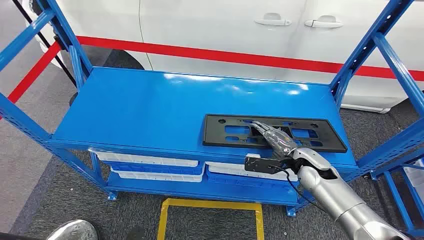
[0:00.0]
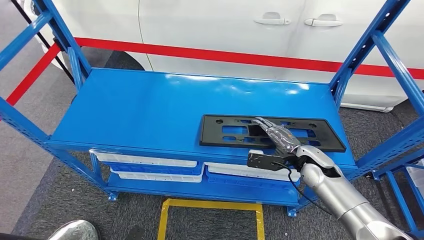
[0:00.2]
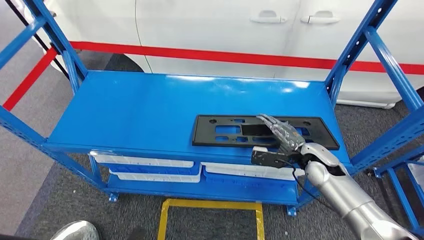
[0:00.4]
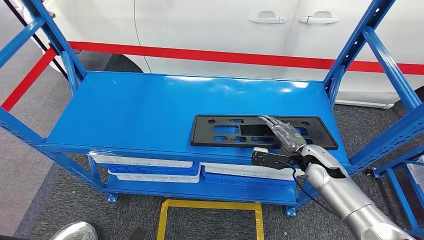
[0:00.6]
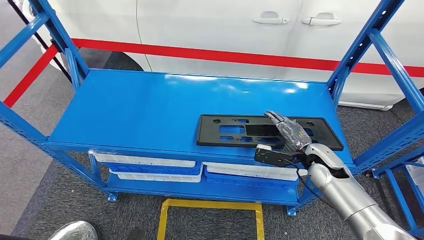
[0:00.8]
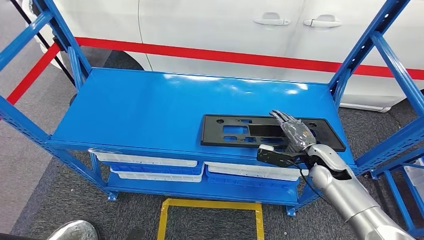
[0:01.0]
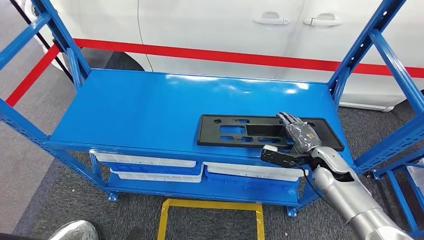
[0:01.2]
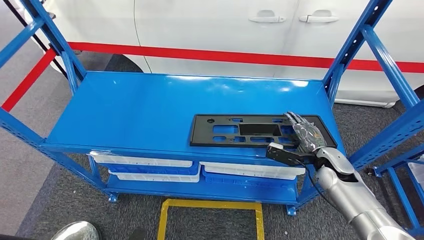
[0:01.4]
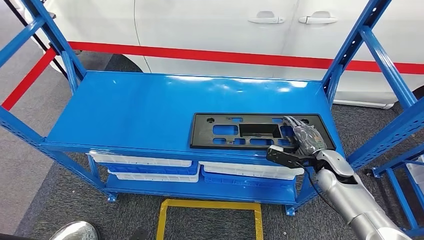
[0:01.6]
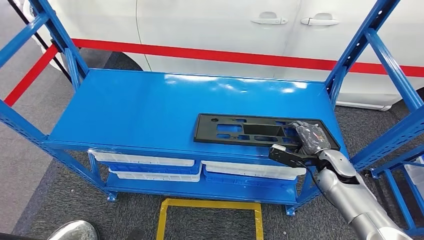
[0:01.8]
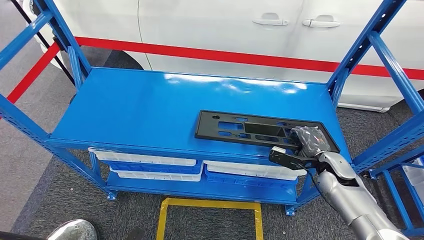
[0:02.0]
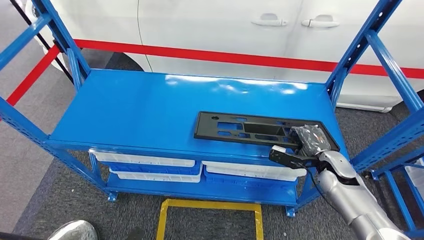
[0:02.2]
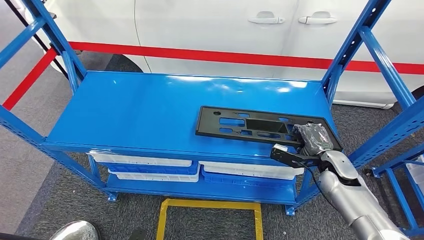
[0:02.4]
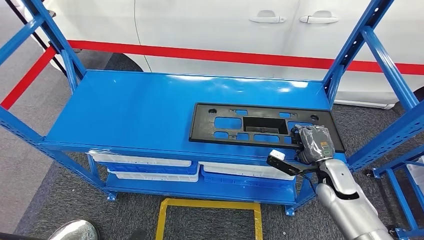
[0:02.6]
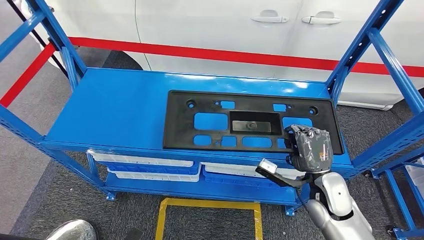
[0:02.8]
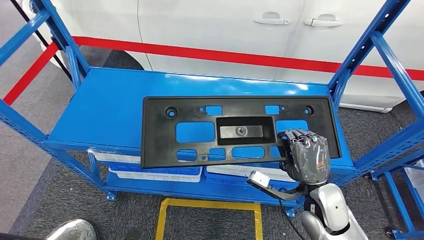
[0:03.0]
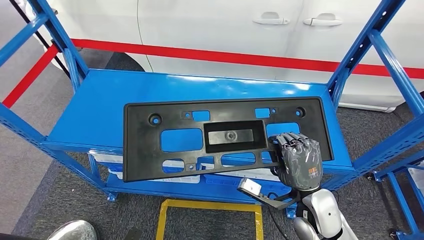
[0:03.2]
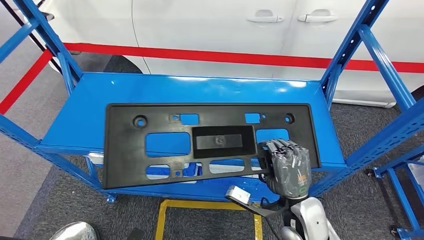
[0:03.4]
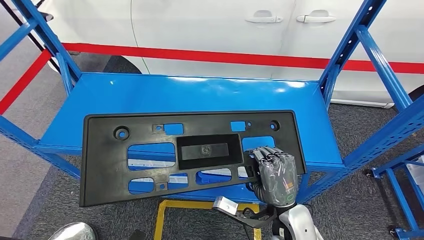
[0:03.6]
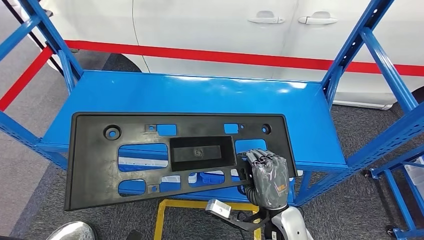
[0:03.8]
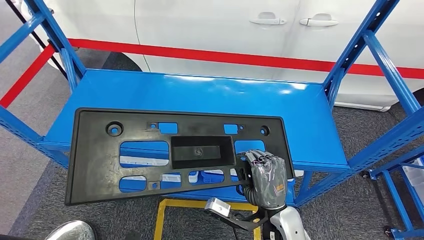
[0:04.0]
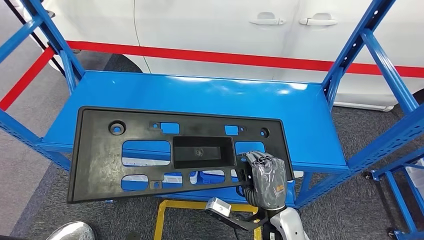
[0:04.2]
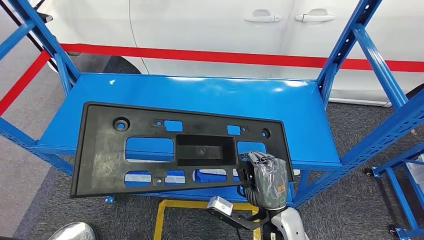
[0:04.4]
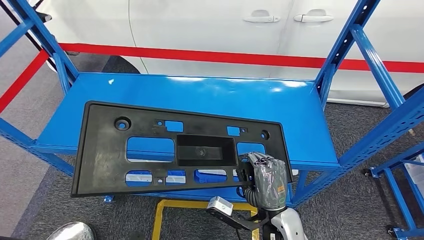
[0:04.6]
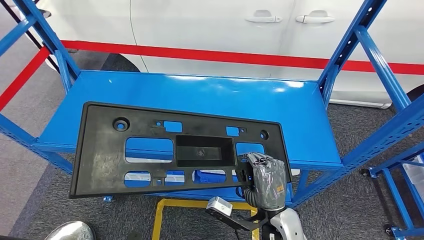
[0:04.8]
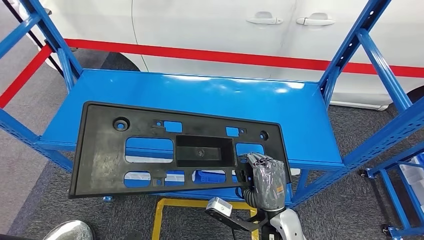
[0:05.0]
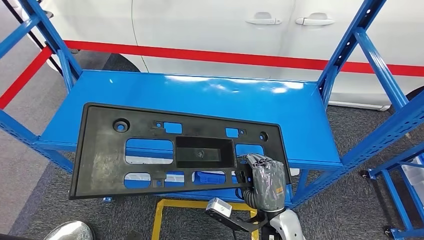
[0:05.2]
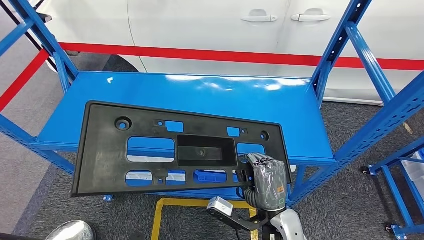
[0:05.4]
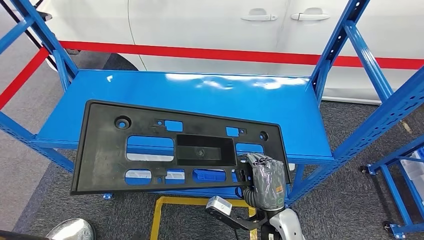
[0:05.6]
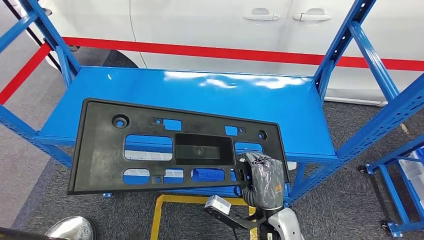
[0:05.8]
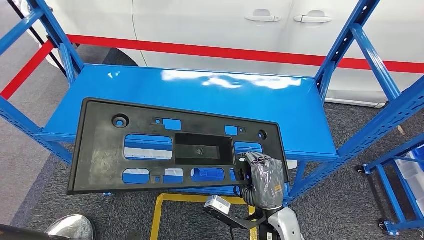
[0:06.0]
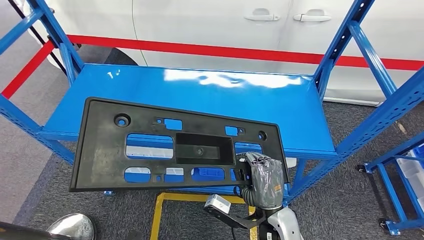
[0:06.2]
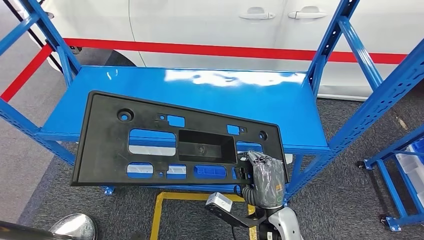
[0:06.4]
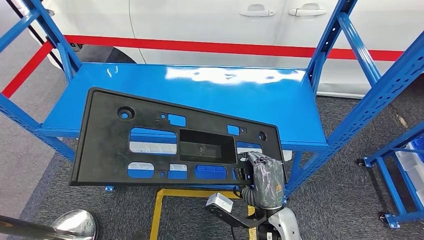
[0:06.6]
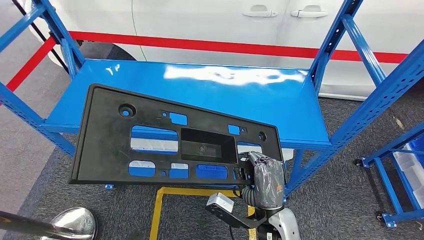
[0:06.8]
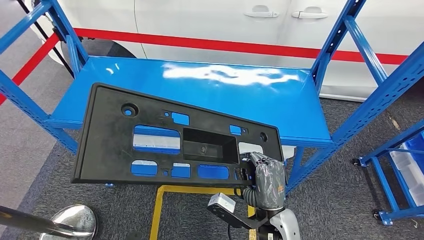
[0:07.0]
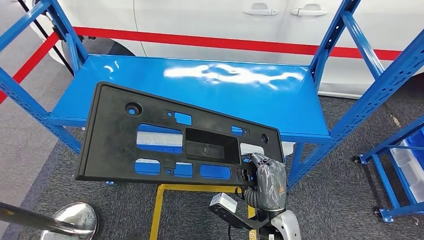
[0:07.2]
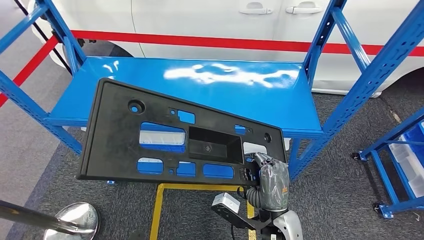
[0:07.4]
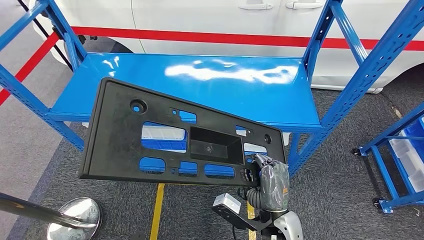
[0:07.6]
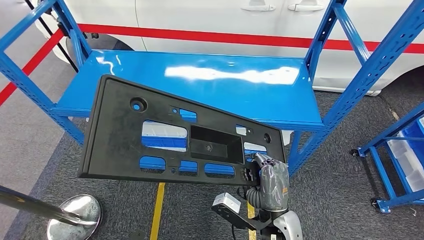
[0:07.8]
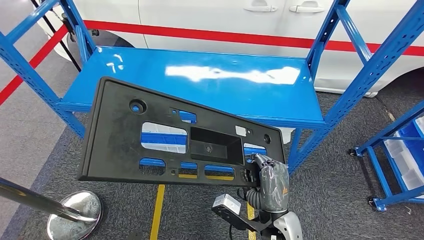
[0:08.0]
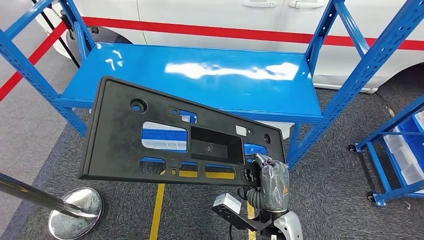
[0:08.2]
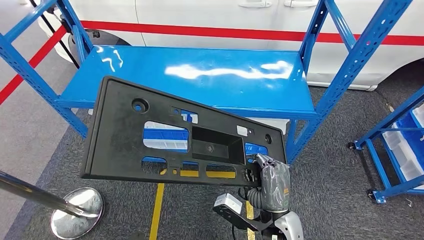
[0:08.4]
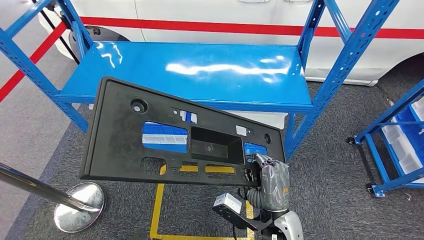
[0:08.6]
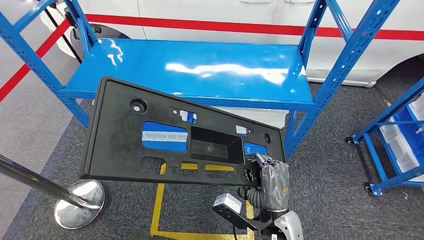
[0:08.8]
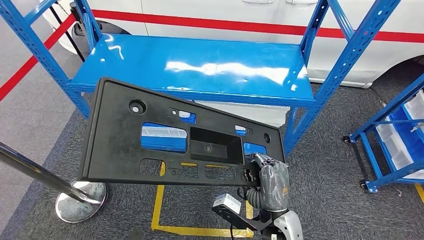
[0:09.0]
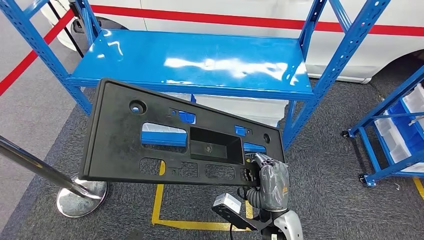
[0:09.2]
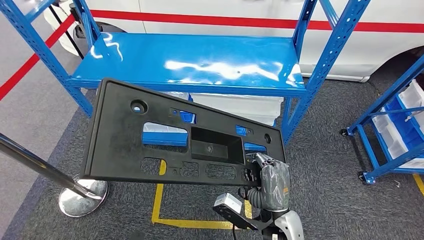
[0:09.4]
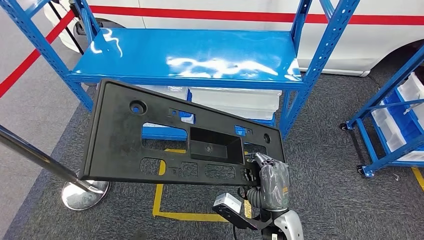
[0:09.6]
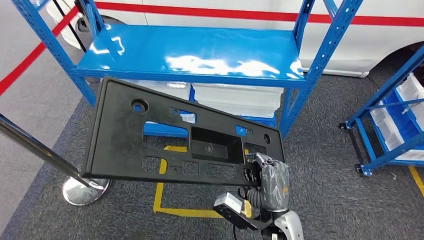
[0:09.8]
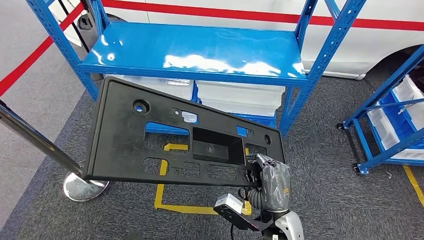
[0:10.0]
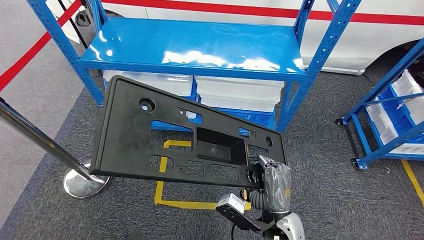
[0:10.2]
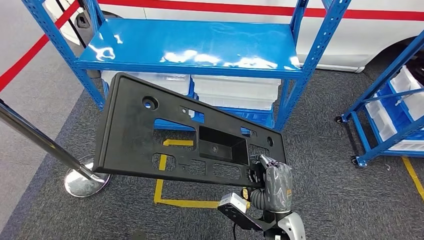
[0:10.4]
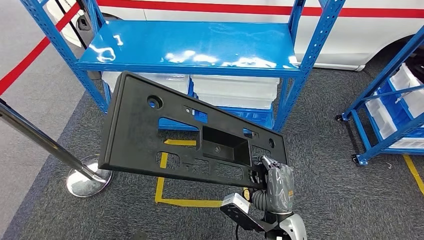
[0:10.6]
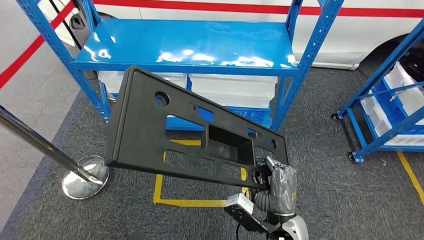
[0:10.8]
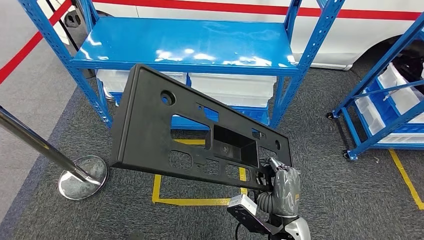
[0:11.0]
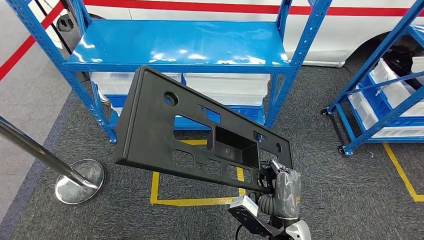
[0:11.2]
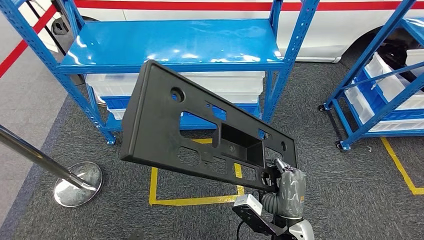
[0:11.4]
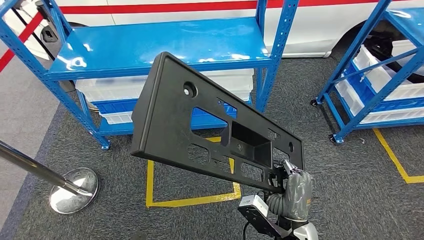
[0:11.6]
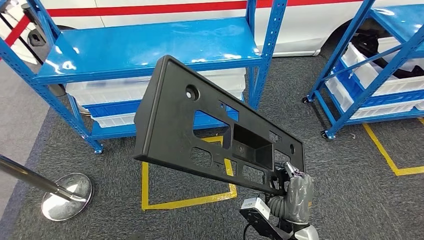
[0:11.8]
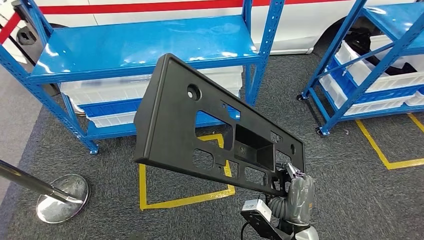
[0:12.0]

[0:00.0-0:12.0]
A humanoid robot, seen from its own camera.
Step, 0:00.0 to 0:06.6: Pick up the large material from the shelf.

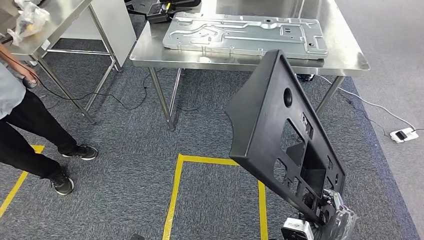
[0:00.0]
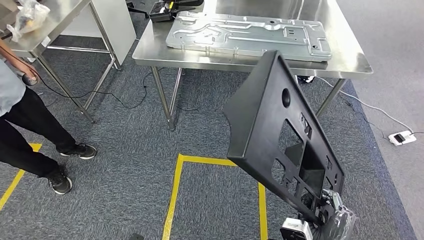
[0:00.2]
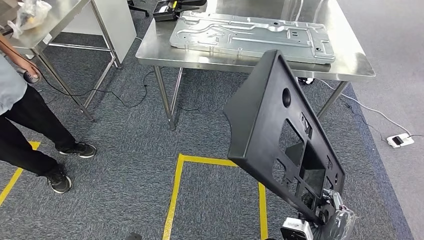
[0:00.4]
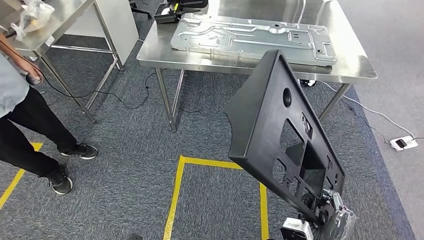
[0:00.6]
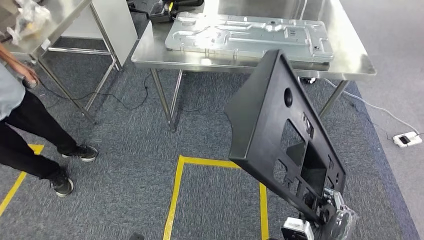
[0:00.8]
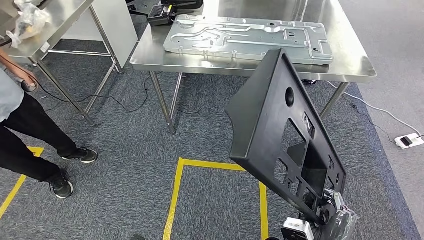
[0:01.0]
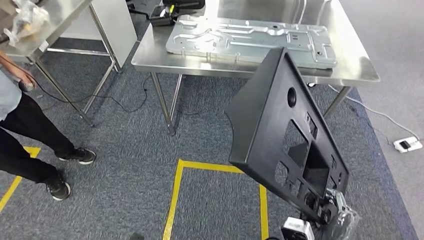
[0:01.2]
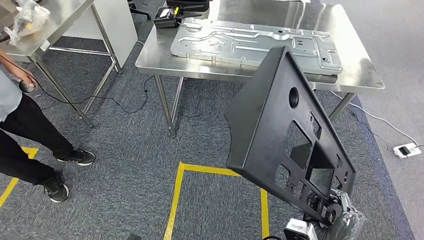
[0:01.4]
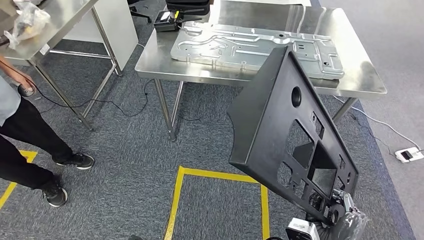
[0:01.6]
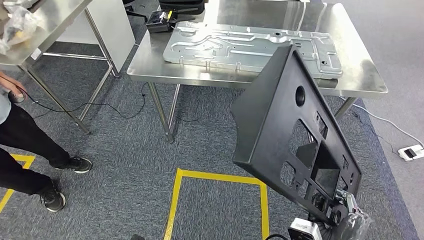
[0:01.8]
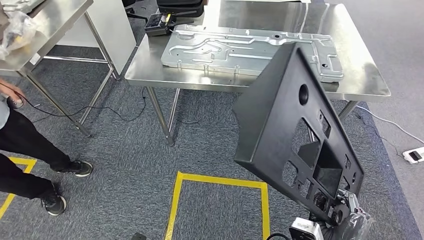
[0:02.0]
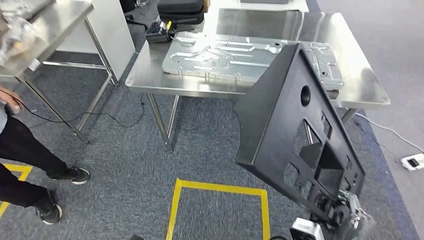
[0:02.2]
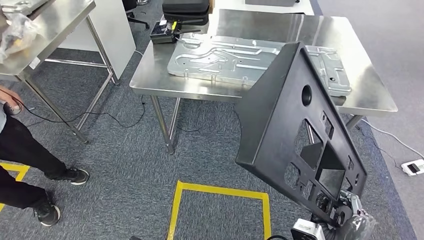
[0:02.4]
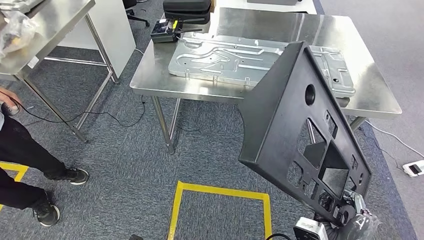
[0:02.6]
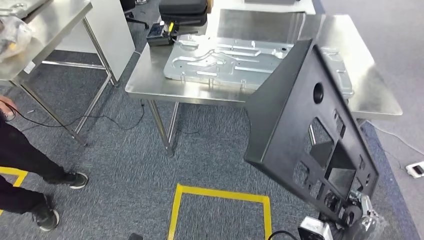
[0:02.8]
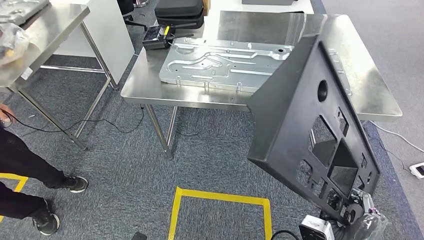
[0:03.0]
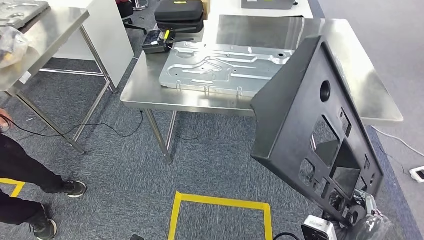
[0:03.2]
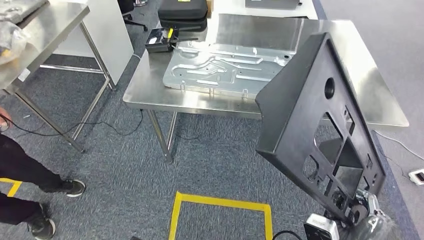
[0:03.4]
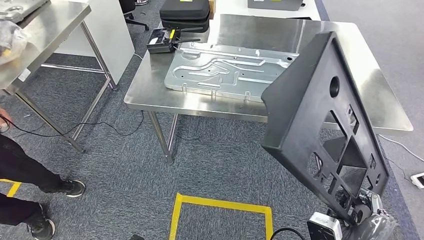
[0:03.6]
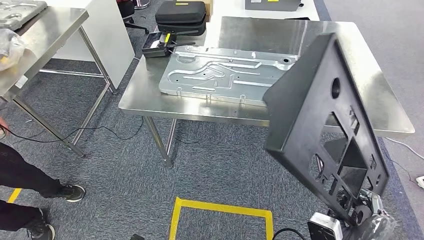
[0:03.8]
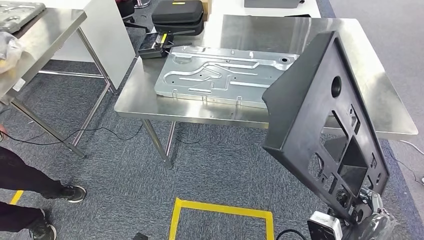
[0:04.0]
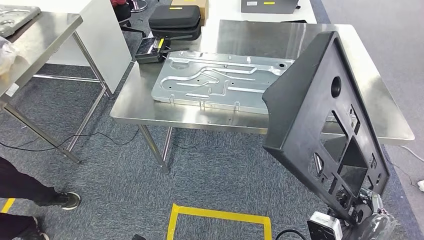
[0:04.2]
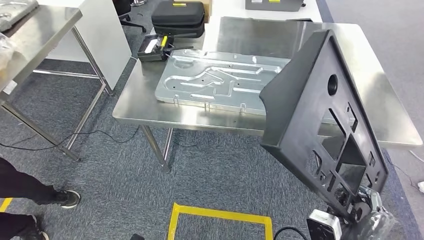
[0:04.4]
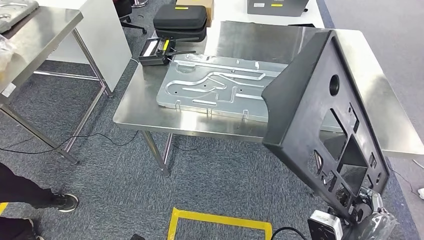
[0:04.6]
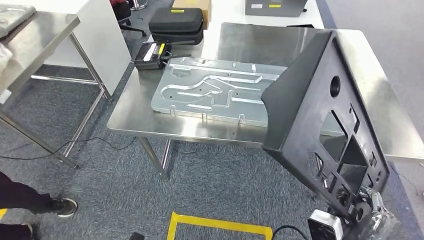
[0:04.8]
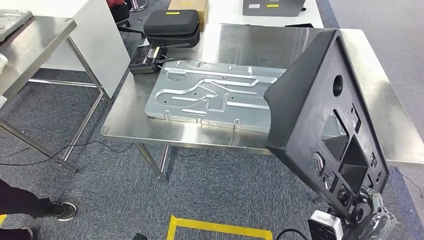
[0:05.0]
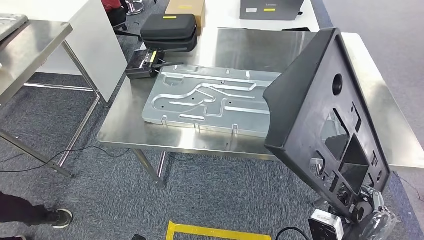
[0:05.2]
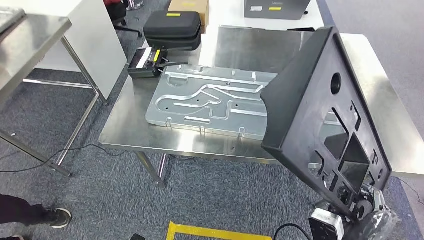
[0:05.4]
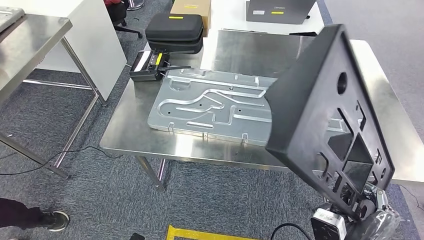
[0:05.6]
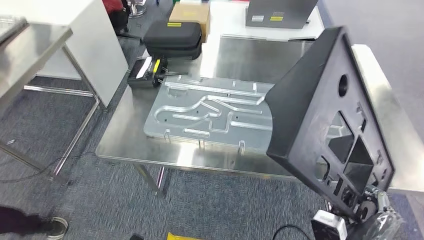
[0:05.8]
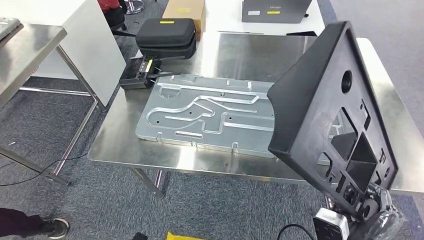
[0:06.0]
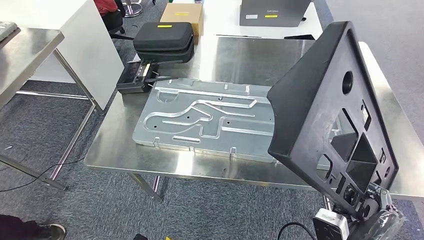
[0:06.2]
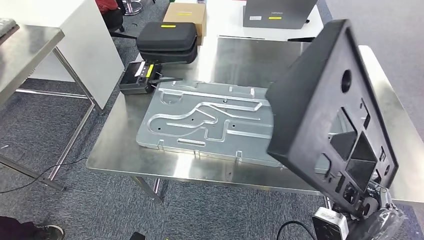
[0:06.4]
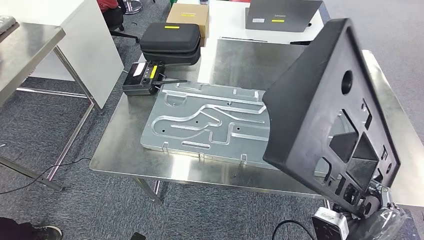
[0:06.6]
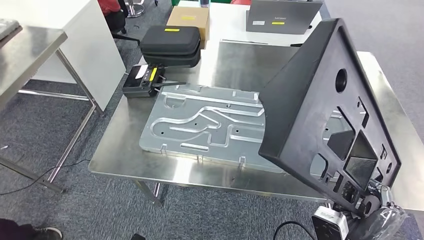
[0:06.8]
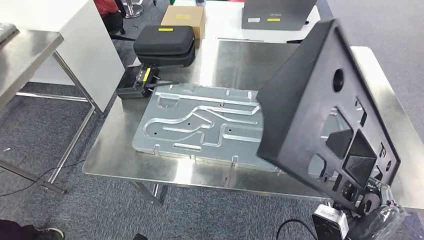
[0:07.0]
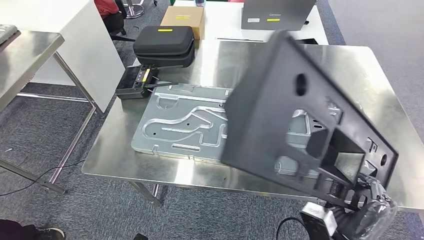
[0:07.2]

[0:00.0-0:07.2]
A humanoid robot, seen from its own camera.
Step, 0:00.0 to 0:02.8: Move the large material to the workbench.
